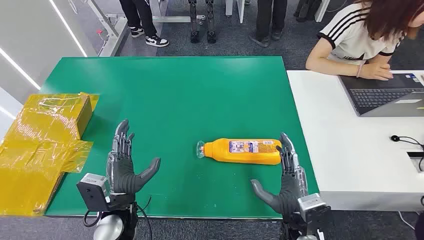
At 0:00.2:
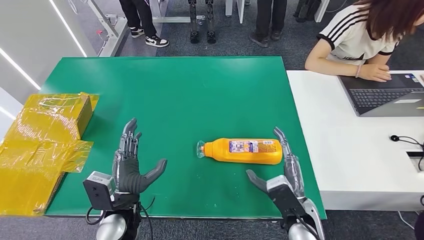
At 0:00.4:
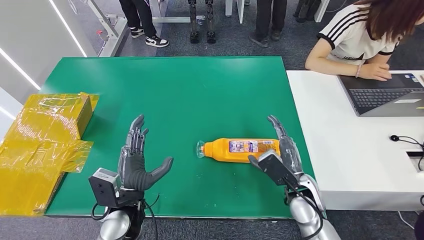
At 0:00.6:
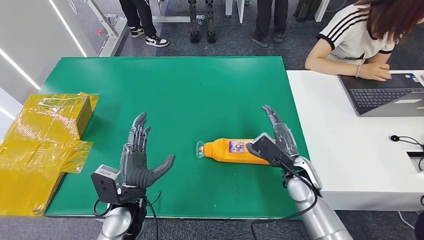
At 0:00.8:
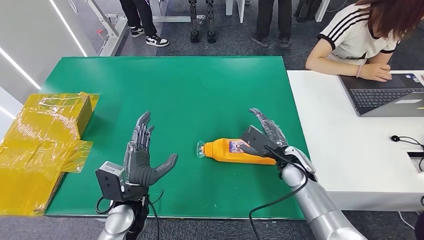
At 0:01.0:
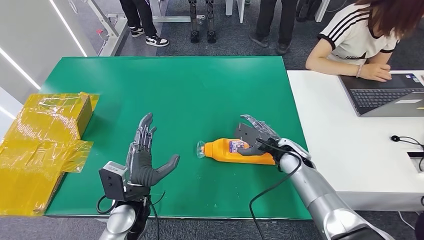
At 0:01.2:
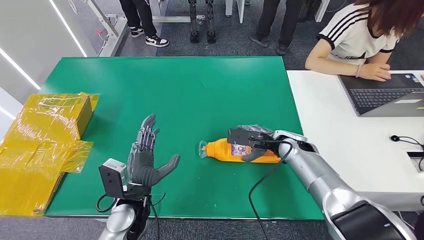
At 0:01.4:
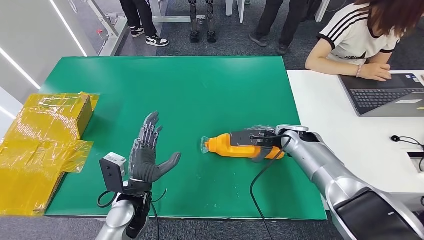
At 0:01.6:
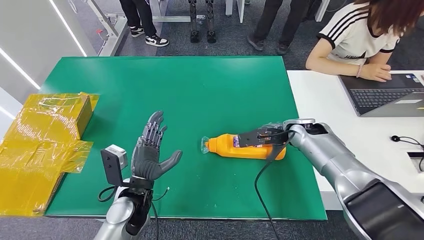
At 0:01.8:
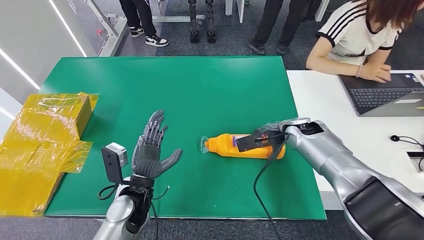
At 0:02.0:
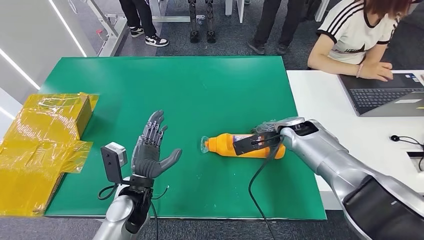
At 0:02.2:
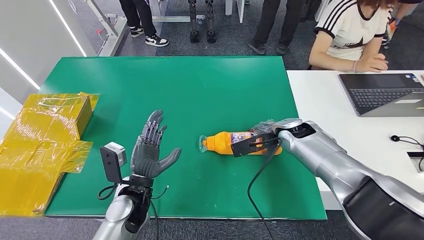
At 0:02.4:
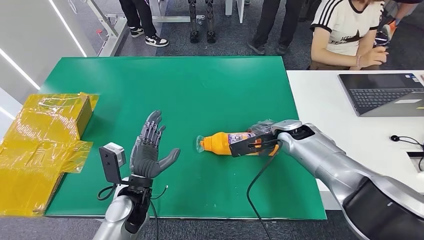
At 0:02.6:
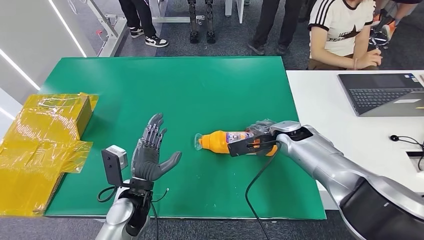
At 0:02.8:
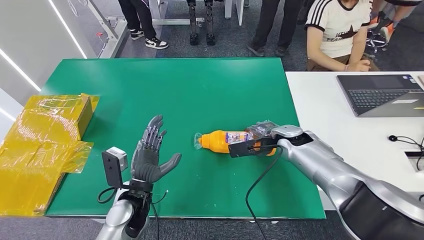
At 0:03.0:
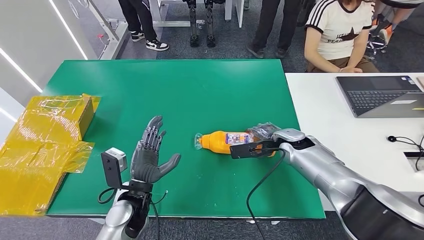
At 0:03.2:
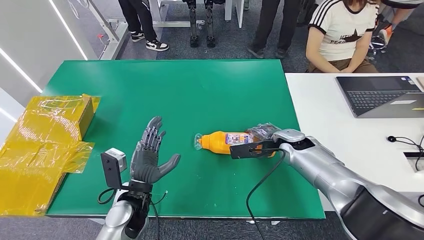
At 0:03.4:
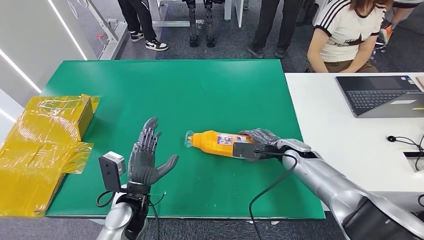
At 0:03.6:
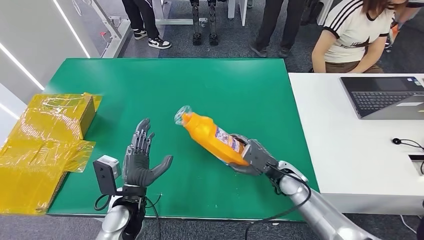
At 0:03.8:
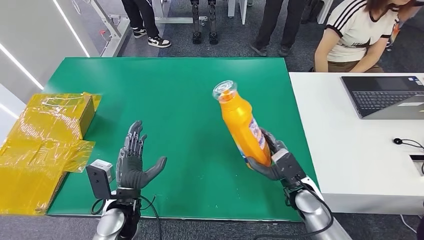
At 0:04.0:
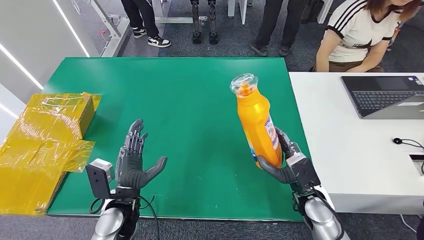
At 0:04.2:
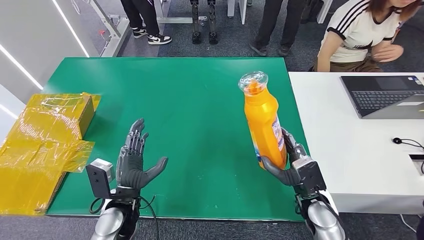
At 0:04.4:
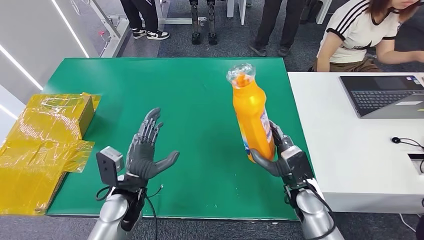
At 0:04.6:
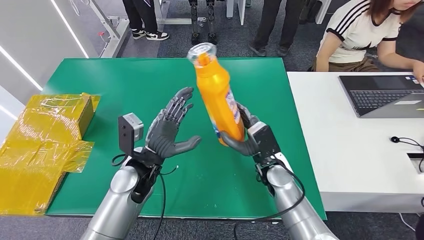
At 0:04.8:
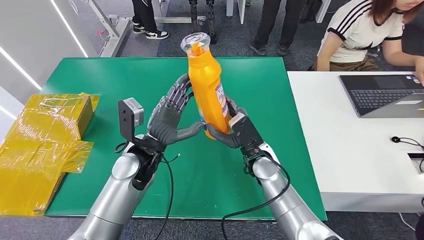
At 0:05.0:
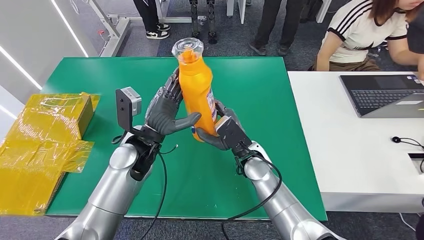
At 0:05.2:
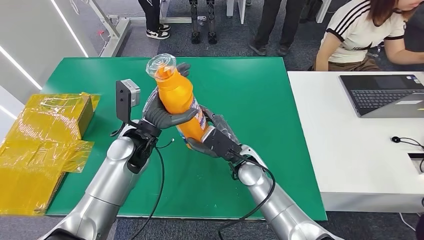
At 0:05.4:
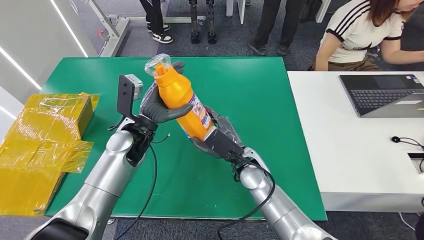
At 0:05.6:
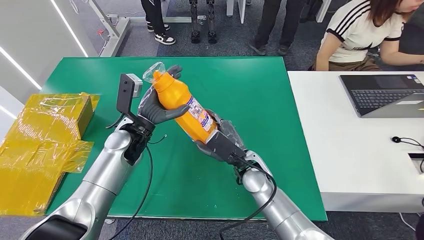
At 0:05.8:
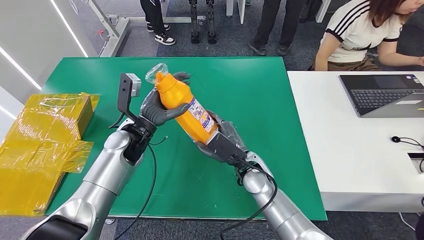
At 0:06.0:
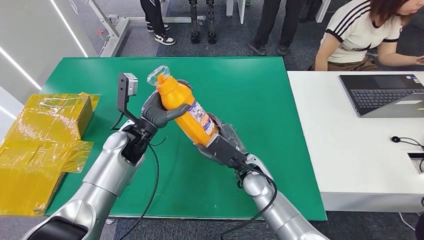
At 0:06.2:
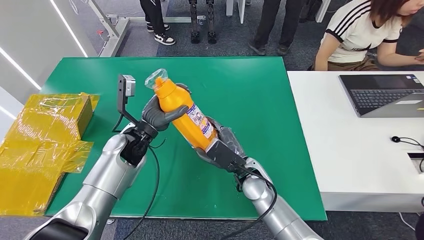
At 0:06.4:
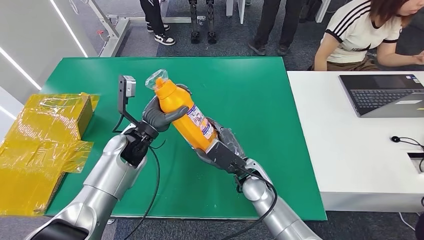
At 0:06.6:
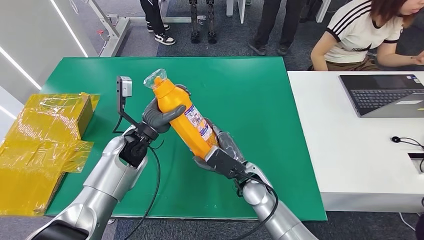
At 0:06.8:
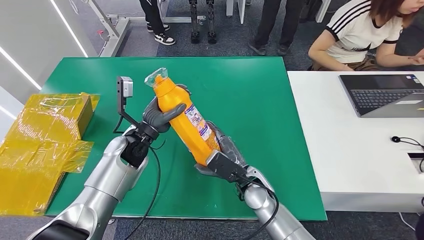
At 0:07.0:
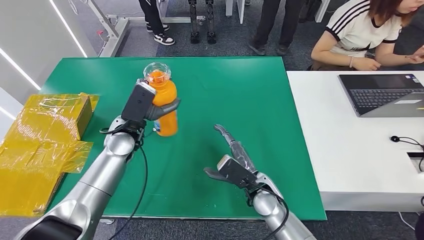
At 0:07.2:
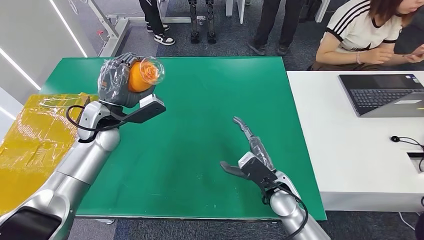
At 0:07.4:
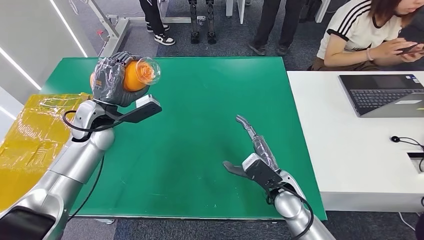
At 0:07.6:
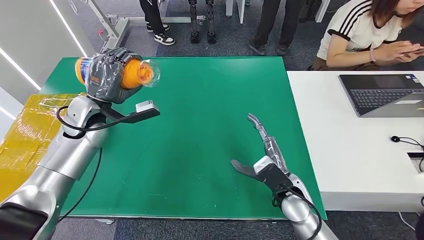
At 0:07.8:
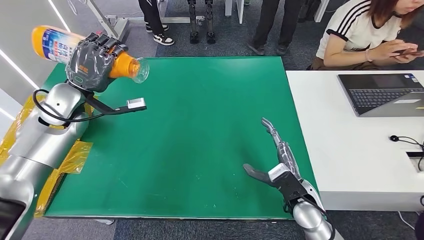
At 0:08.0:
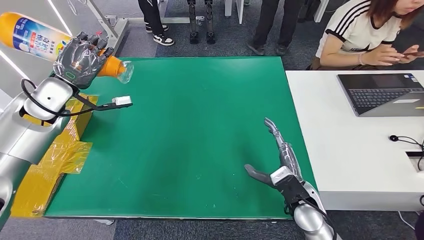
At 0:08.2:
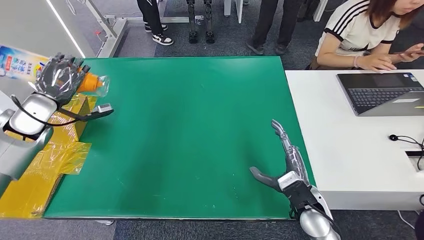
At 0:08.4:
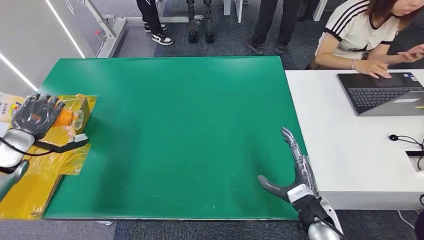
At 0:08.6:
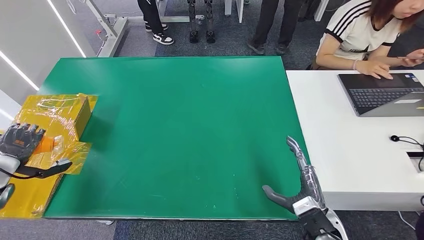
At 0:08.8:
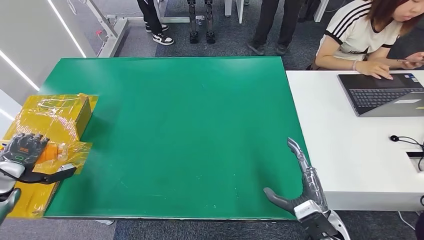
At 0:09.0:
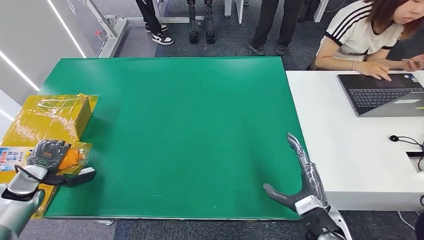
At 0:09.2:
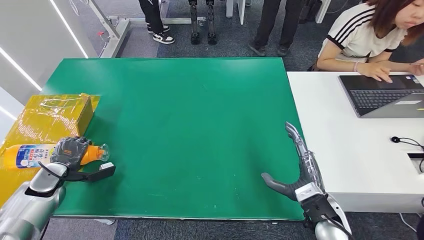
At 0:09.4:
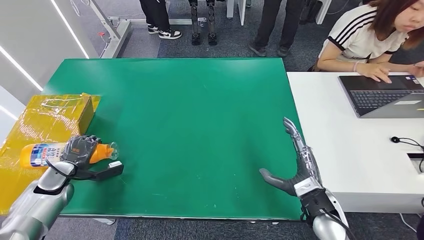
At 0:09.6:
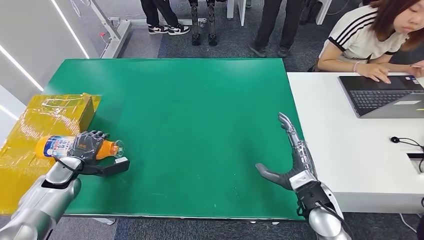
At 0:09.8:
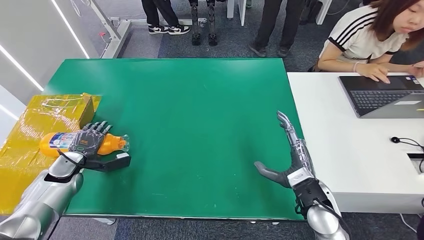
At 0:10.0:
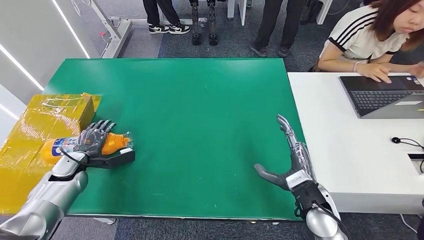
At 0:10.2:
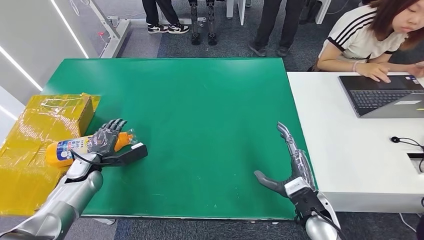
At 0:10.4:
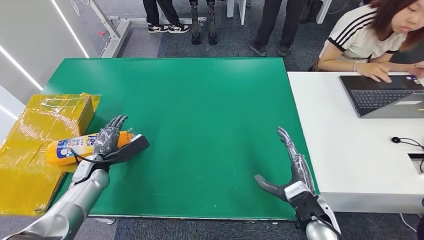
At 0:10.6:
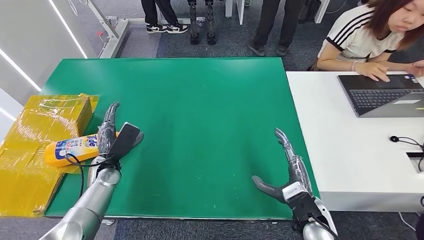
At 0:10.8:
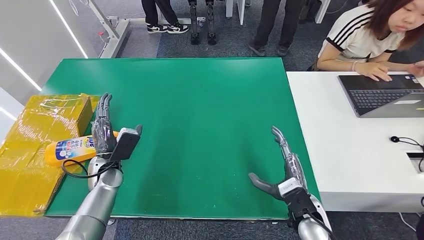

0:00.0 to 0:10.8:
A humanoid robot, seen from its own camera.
Step, 0:00.0 to 0:04.0: Pick up the bottle from the table.
Step, 0:04.2 to 0:10.8: Turn the bottle to the front side.
0:09.2 to 0:10.8: The left hand moves to the right, approximately 20 cm.

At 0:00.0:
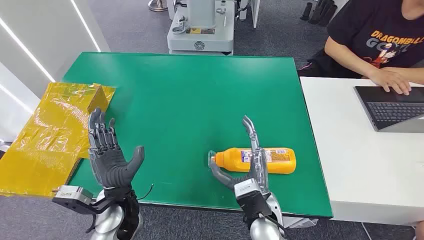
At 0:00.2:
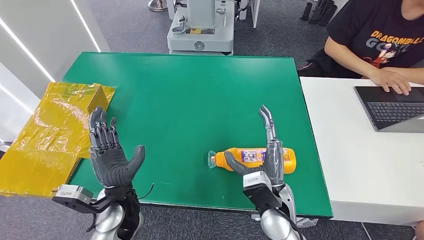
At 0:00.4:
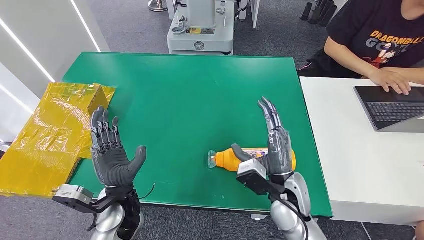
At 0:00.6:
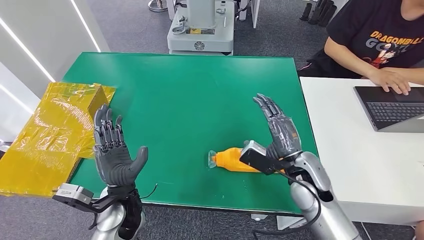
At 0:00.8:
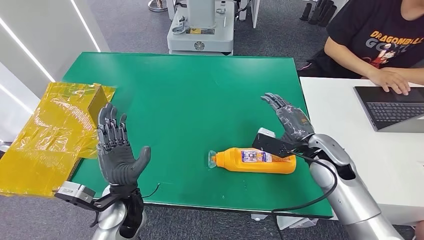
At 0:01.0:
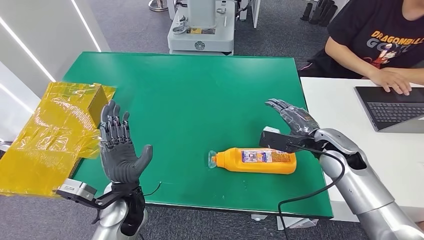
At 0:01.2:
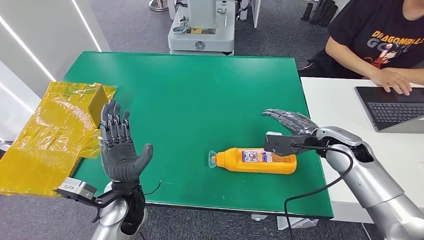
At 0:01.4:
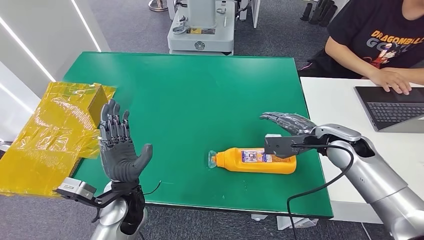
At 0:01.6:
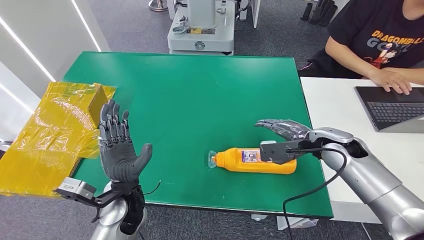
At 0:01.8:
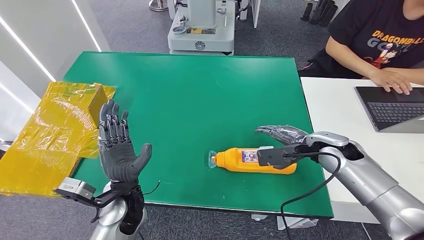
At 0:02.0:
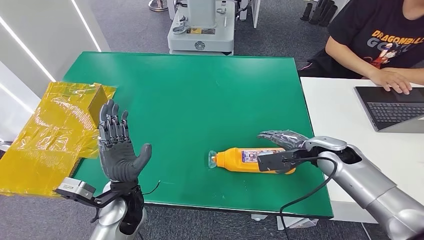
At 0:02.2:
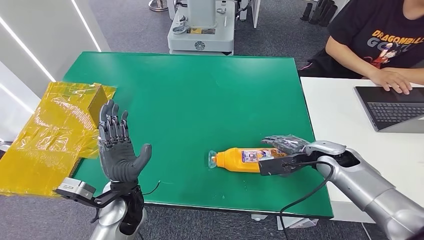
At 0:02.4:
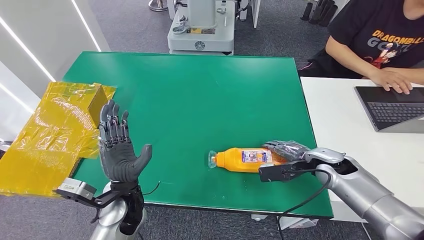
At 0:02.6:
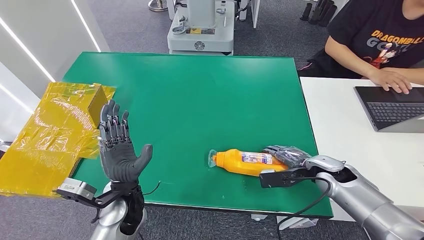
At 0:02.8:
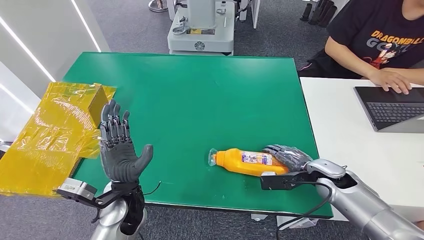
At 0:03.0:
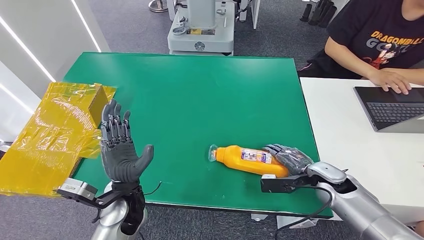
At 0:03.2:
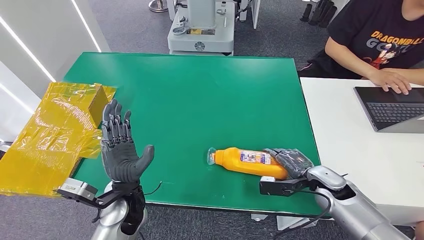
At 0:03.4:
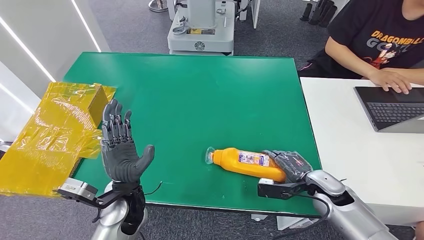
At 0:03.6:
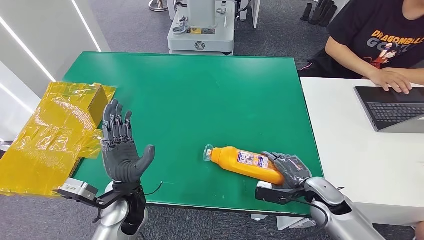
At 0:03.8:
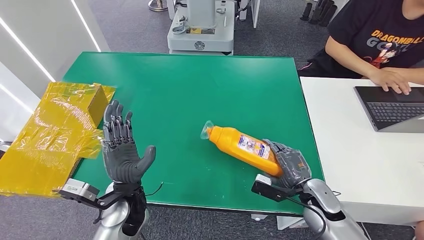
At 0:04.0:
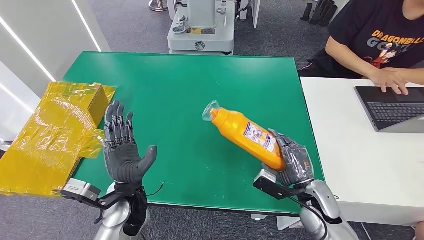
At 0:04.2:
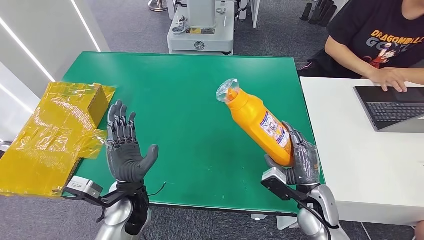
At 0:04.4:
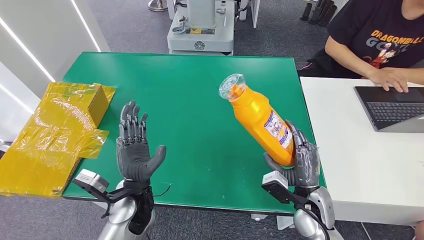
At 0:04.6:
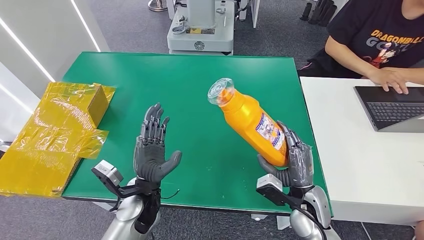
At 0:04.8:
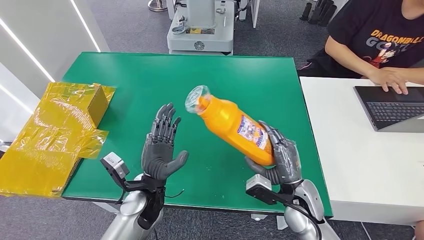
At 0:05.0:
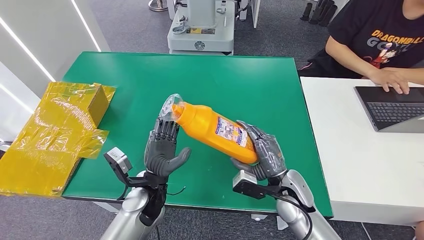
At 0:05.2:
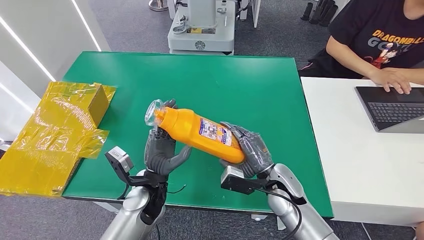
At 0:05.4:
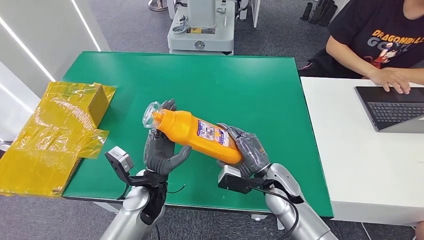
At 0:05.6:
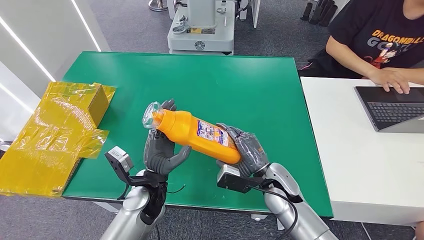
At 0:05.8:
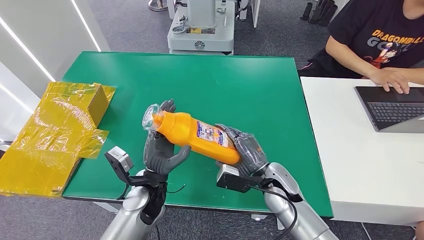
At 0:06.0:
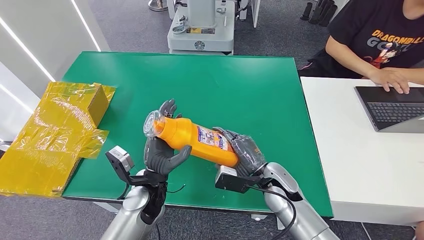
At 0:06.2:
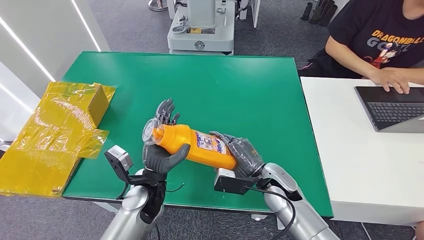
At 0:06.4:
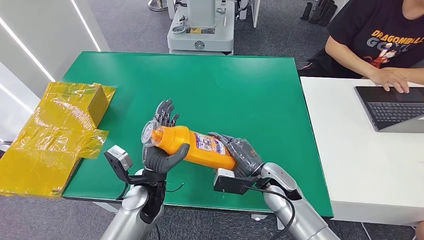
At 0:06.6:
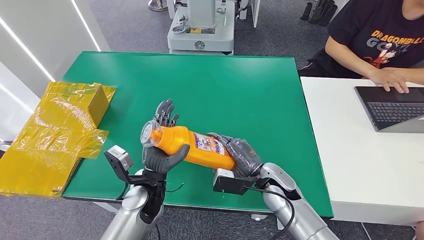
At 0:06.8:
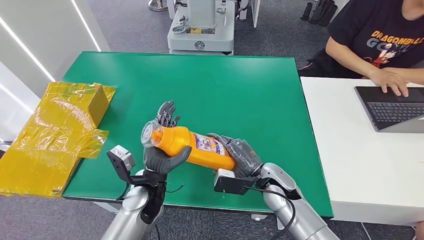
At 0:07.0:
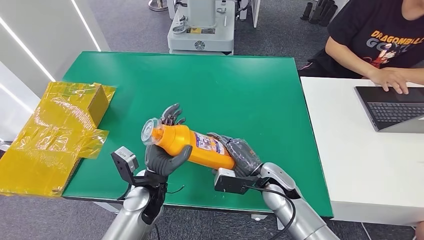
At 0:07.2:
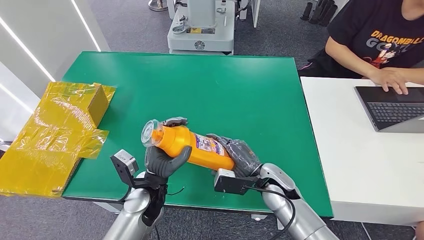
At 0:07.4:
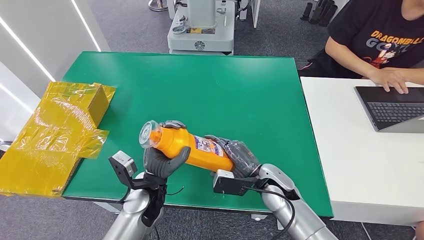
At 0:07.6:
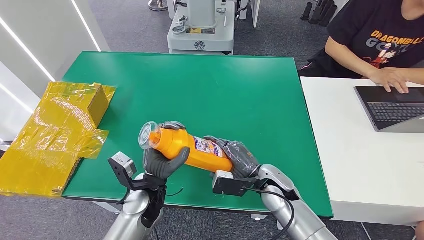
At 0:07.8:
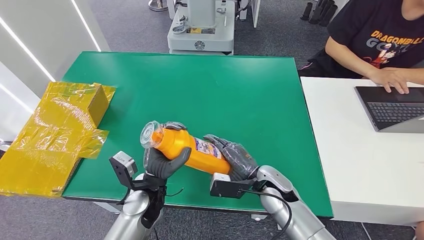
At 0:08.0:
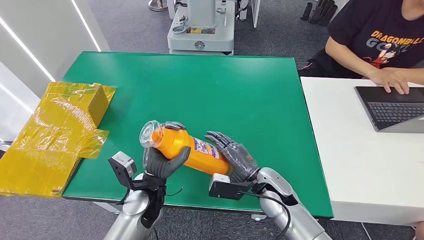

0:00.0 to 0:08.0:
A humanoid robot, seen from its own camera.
Step, 0:00.0 to 0:04.4: Pick up the bottle from the table.
0:01.6 to 0:03.2: The right hand heads downward and backward, covering about 15 cm.
0:03.2 to 0:04.8: The right hand goes some 10 cm to the left.
0:04.8 to 0:06.4: The right hand is displaced to the left by about 5 cm.
0:06.4 to 0:08.0: There are only small adjustments of the hands.
